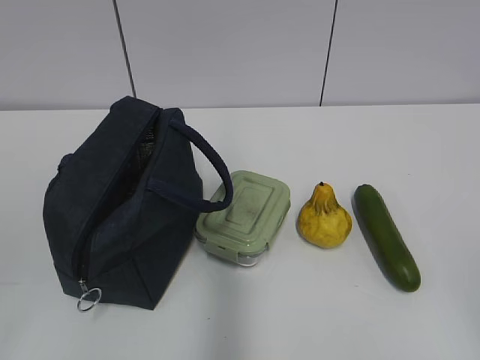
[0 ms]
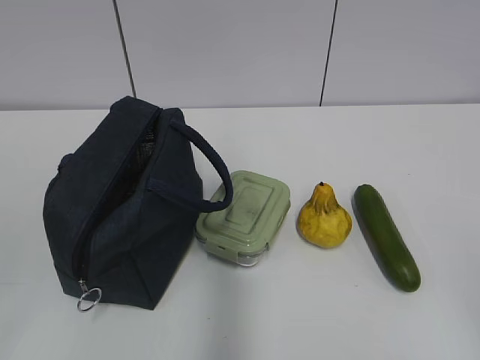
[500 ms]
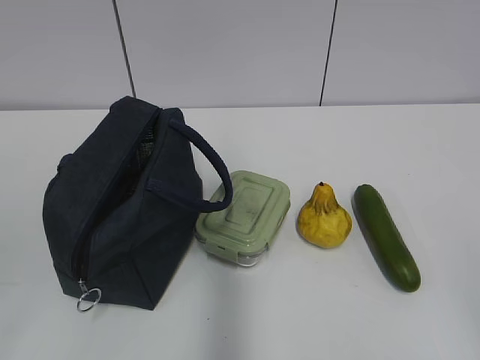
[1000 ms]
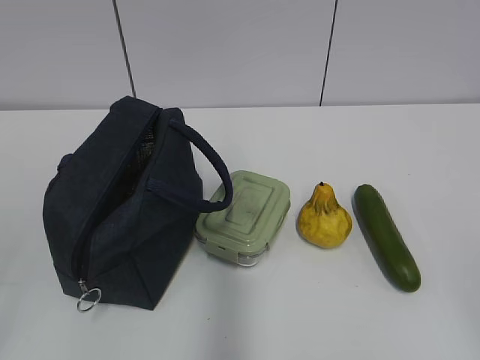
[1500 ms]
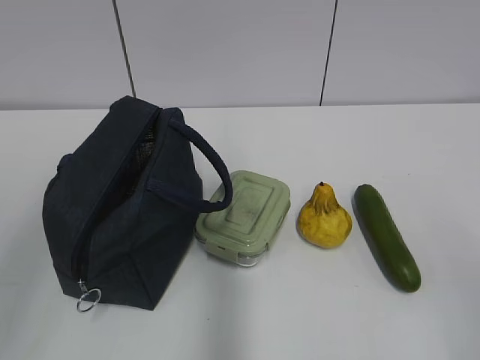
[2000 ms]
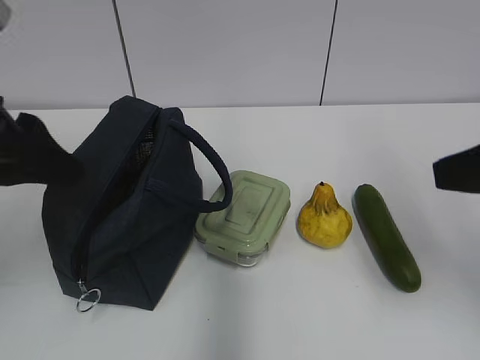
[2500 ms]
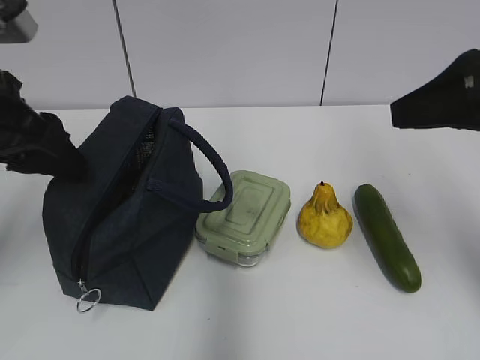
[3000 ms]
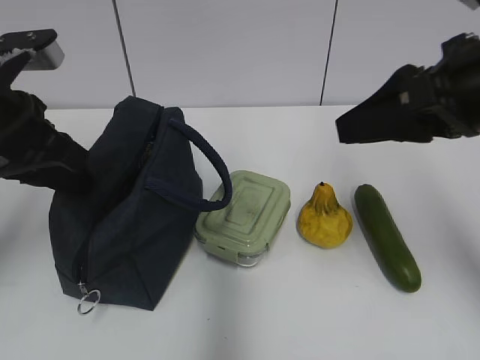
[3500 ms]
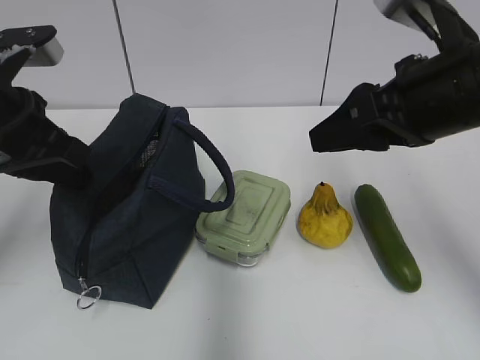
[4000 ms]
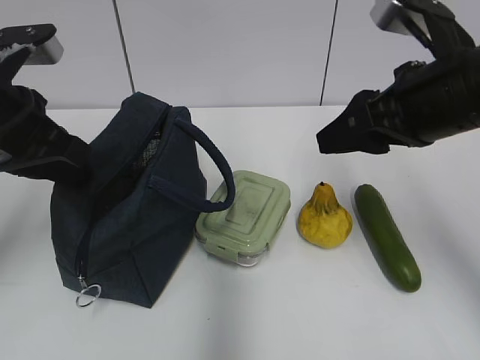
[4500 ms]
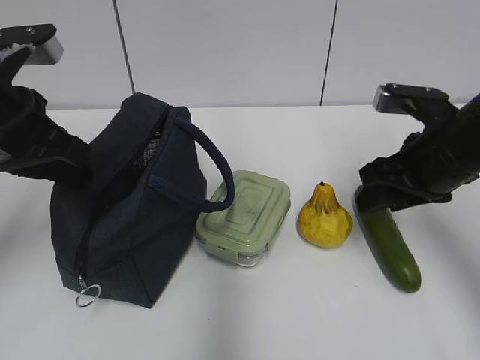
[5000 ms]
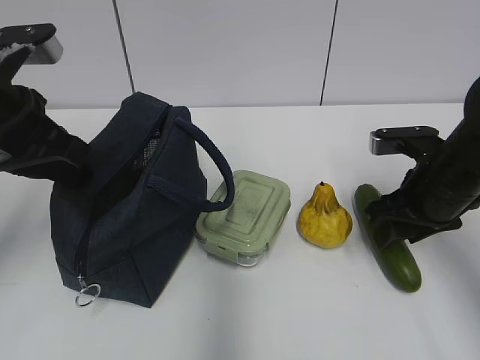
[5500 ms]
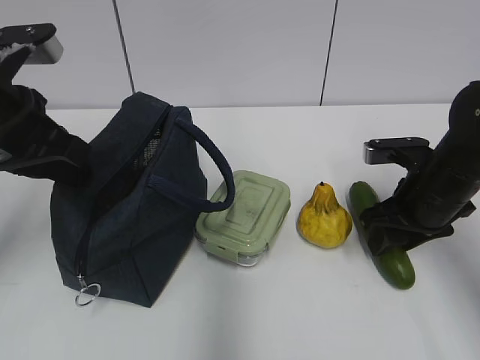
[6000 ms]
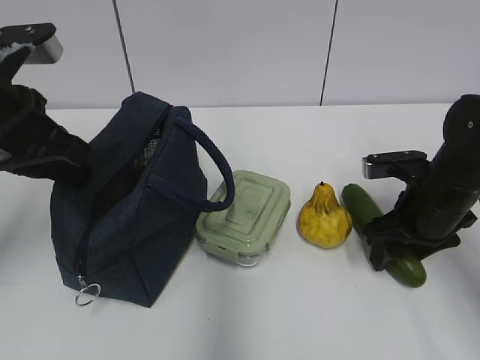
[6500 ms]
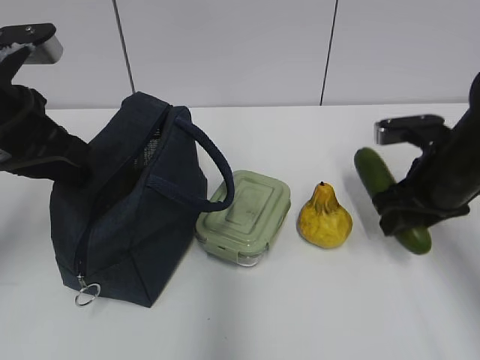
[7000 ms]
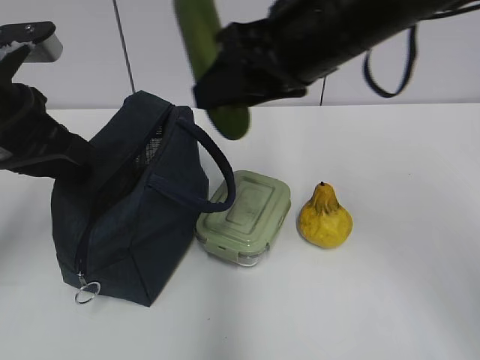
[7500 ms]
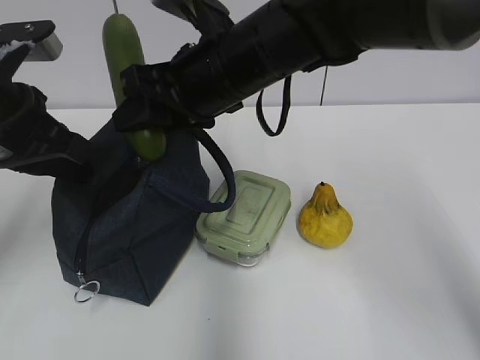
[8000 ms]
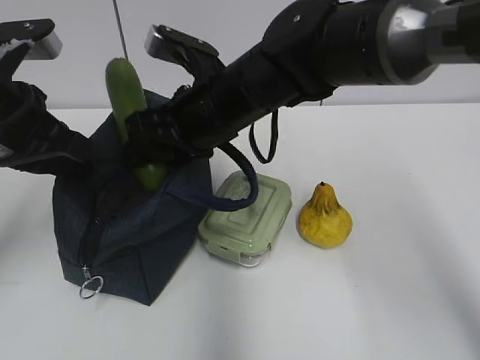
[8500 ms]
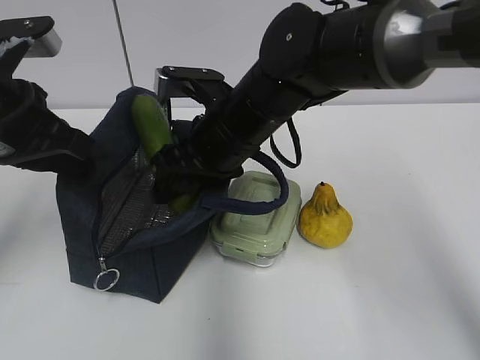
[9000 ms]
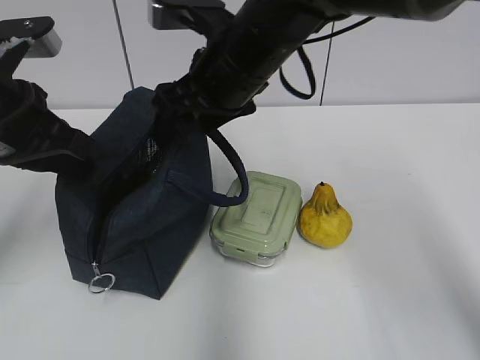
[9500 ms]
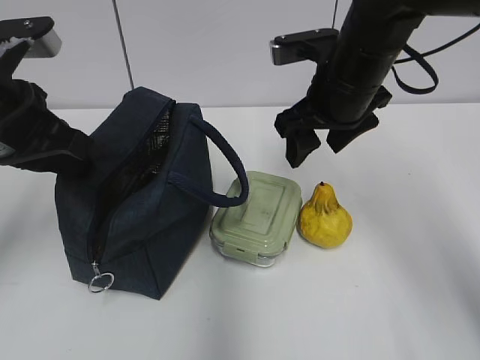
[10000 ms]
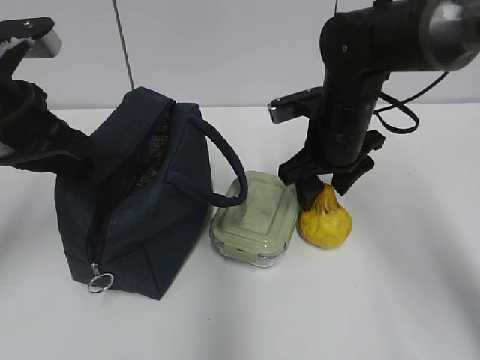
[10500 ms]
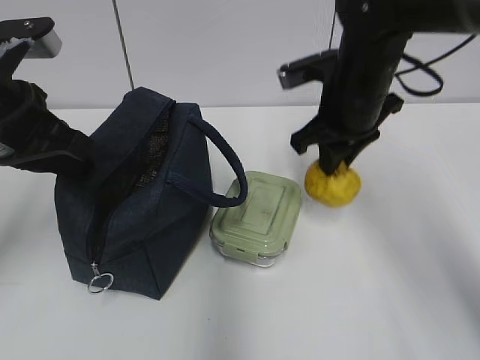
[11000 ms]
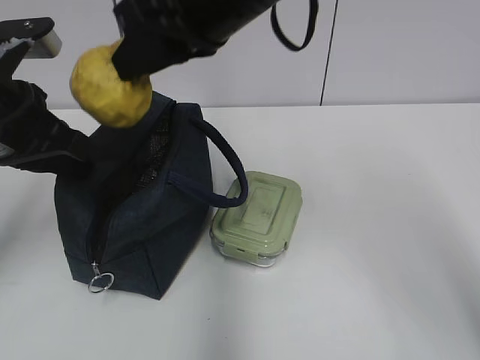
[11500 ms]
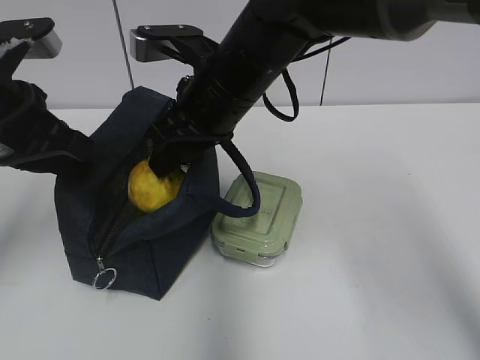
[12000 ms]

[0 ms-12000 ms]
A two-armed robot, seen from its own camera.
2000 ms to 4000 ms: The left gripper travels forward by approximately 20 cm, and closes up. Meanwhile the right gripper travels forward and to the left by about 25 cm.
4000 ms to 6000 ms: The right gripper shifts some 15 cm downward.
6000 ms to 8000 ms: The right gripper shifts roughly 25 cm to the left and upward.
8000 ms to 10000 ms: The right gripper travels to the right by some 10 cm, and opens its fingers.
10000 ms to 12000 ms: The right gripper swings up and down, some 15 cm each way, with 2 reversals, and closes and opens again.

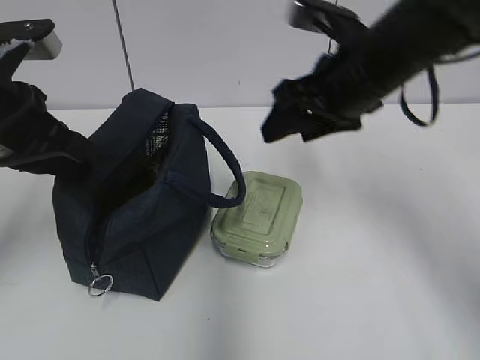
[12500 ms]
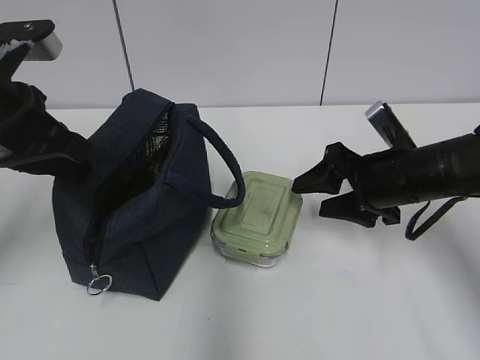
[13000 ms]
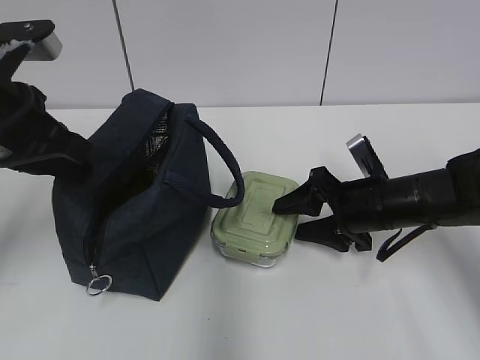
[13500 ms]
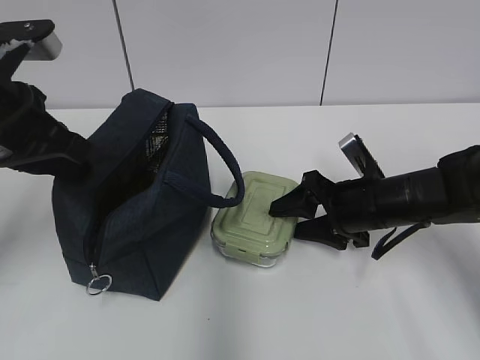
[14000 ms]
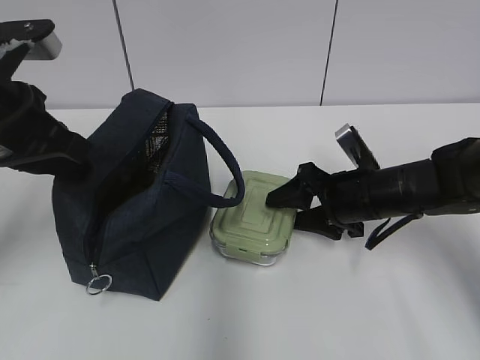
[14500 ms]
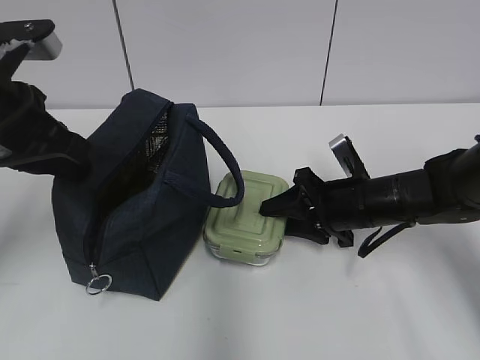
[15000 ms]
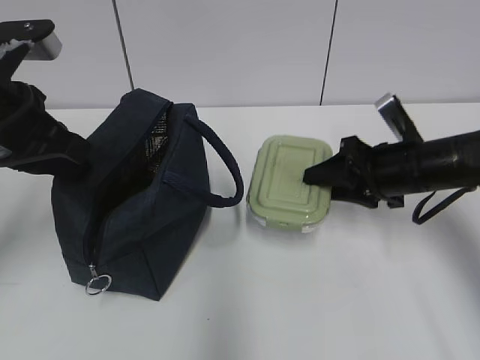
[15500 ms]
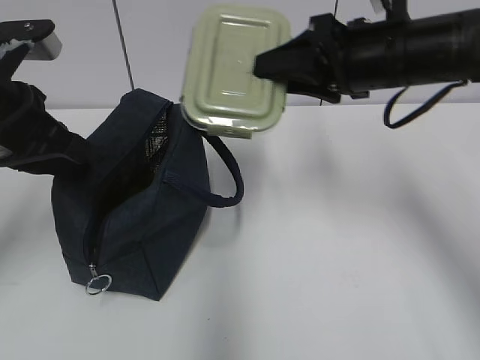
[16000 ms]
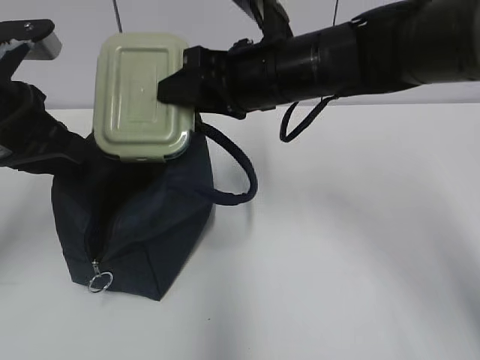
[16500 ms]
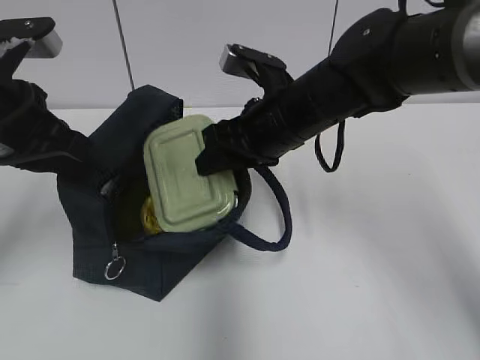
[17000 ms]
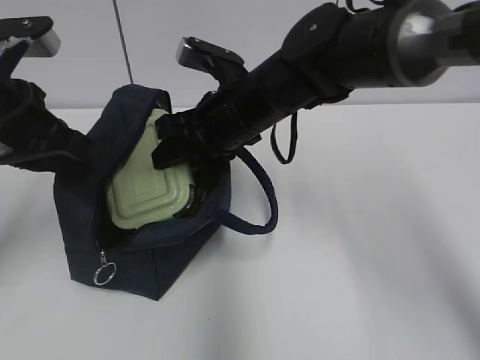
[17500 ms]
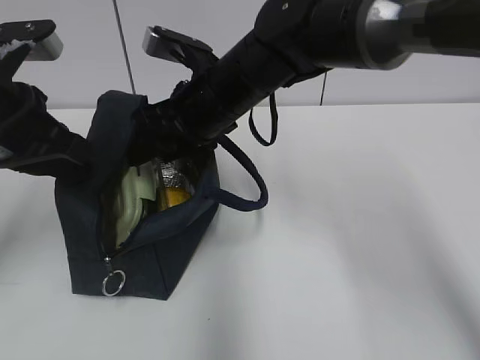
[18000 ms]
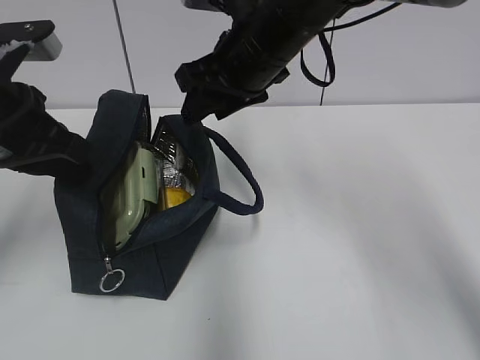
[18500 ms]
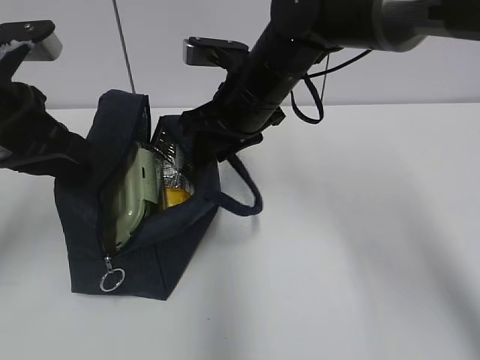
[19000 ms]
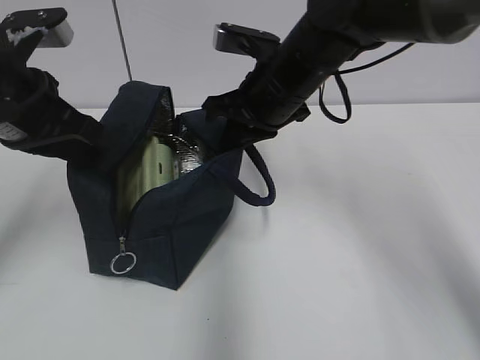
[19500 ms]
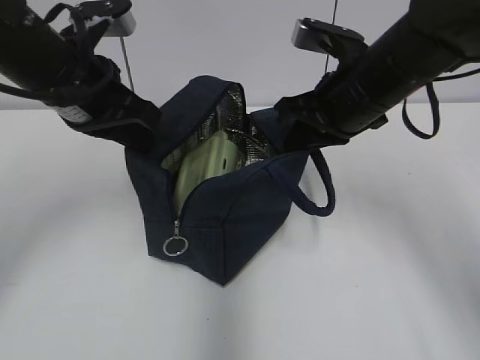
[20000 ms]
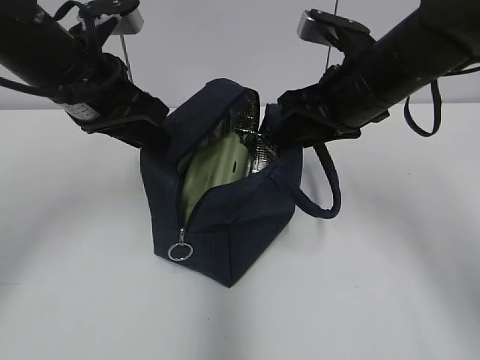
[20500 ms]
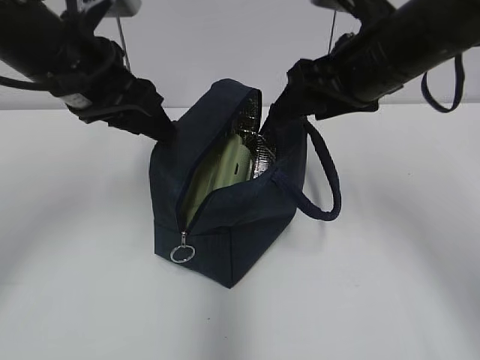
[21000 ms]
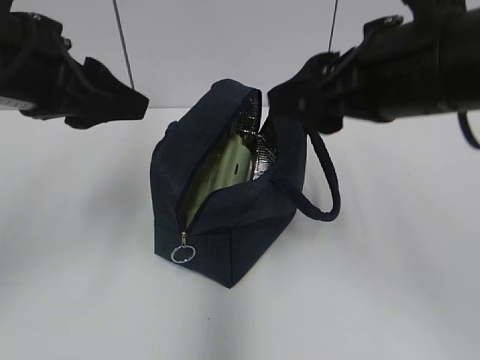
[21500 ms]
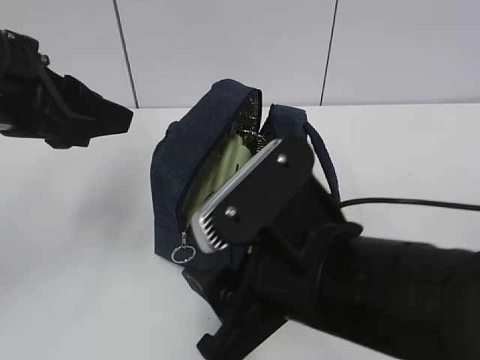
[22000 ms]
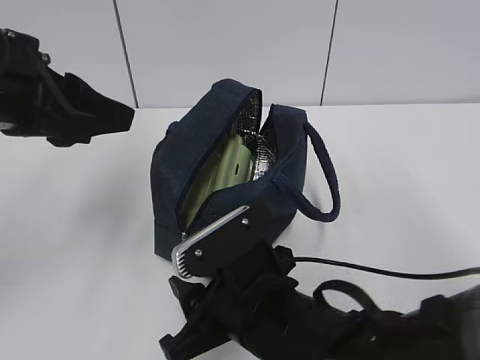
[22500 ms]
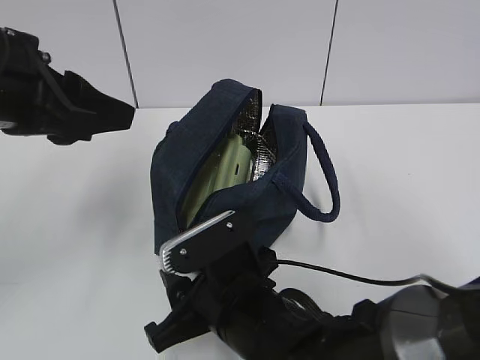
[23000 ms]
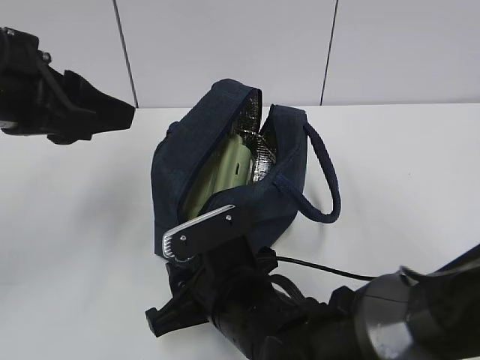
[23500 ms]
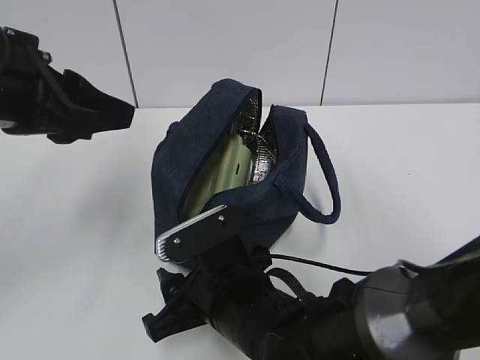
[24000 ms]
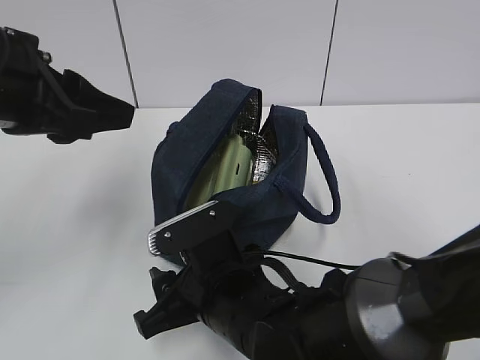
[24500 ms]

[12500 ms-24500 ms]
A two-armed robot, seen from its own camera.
12500 ms to 14500 ms: The right gripper travels downward by about 15 cm.
14500 ms to 16500 ms: The right gripper heads upward and to the left, covering some 20 cm.
18500 ms to 20500 ms: The right gripper travels to the right by roughly 10 cm, and closes, then opens again. The left gripper is displaced to the right and forward by some 10 cm, and opens up.
20500 ms to 22500 ms: The right gripper shifts about 25 cm backward, downward and to the left. The left gripper goes approximately 10 cm backward.
22500 ms to 24500 ms: The right gripper shifts by about 5 cm.

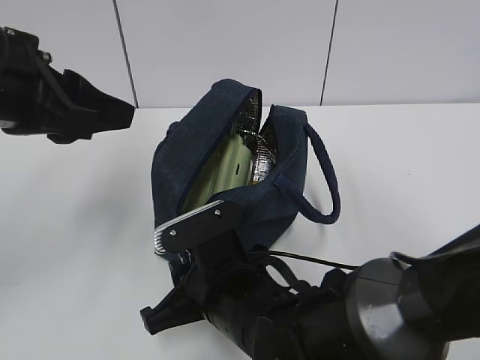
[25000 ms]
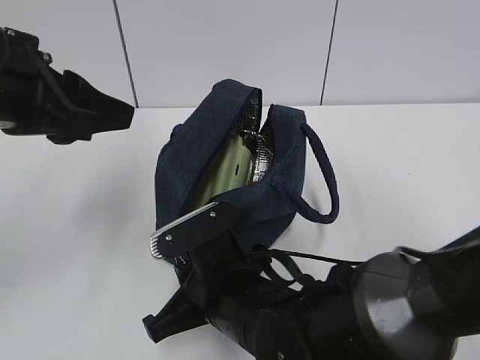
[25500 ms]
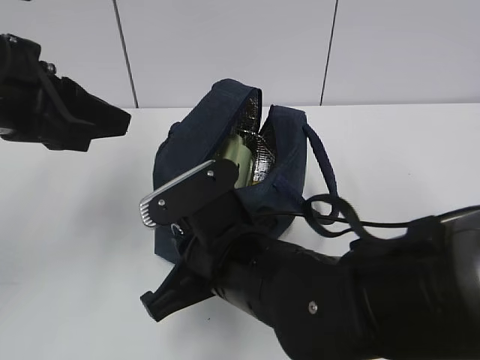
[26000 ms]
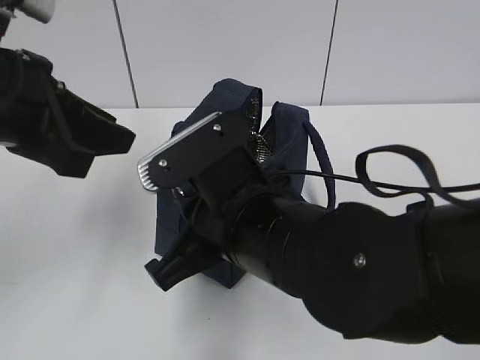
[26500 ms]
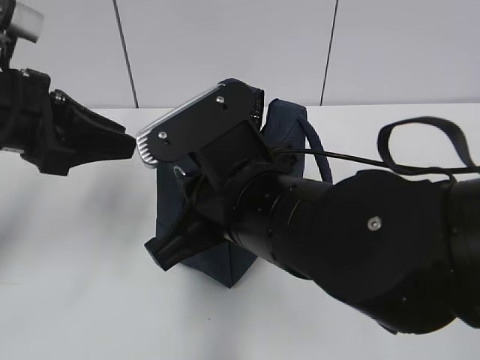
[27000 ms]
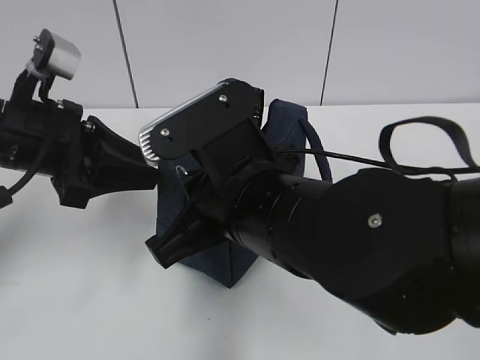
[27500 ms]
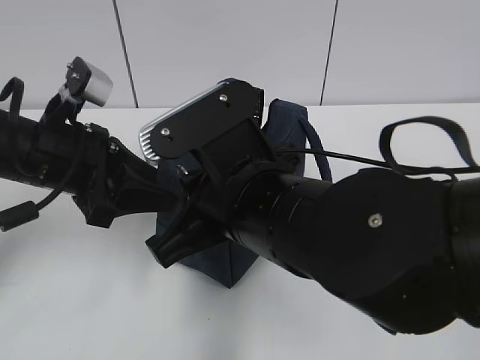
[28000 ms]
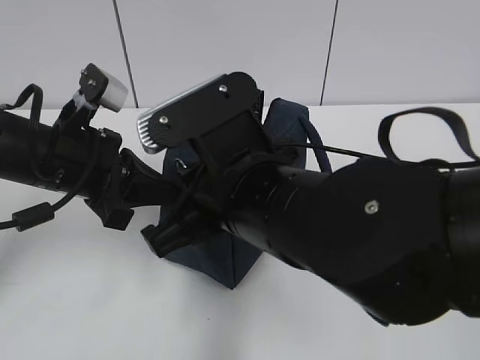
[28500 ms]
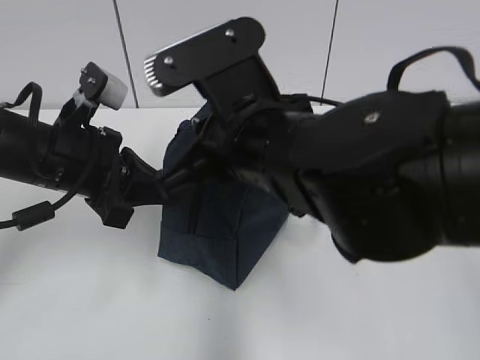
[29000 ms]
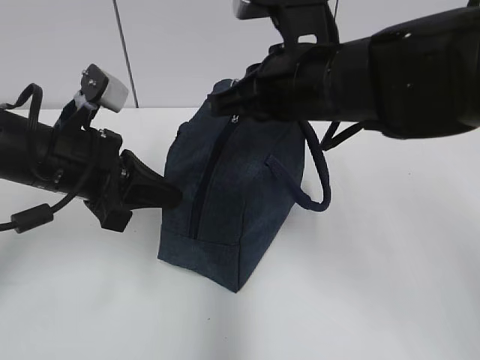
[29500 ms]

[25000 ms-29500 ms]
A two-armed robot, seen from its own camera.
25000 ms to 27000 ms: The right gripper heads upward, covering roughly 15 cm; the left gripper moves roughly 5 cm.
27000 ms to 29500 ms: The right gripper shifts about 10 cm forward, to the right and upward. The left gripper goes about 5 cm downward, and closes its fingers.
